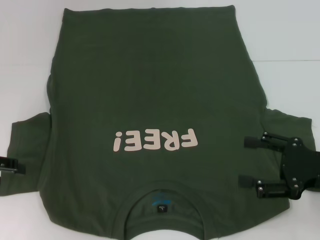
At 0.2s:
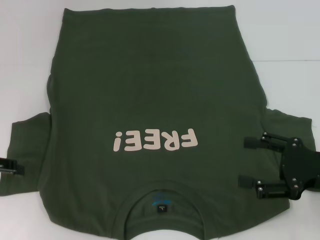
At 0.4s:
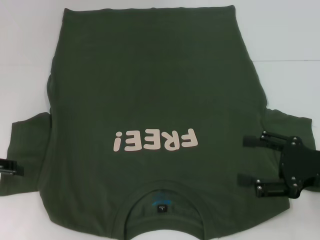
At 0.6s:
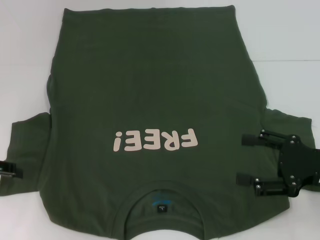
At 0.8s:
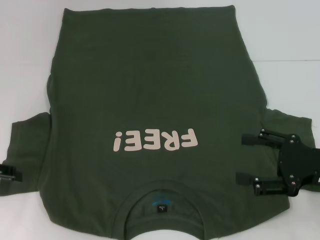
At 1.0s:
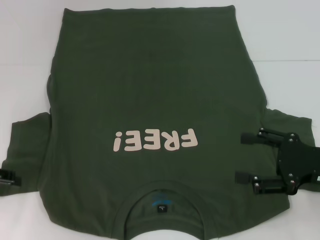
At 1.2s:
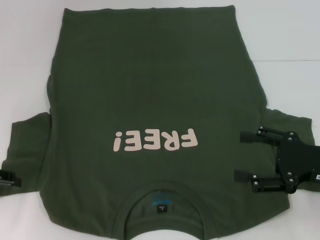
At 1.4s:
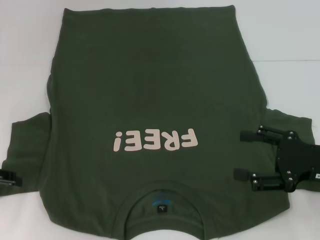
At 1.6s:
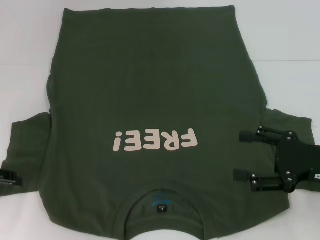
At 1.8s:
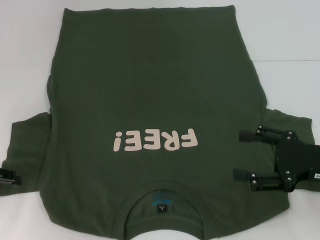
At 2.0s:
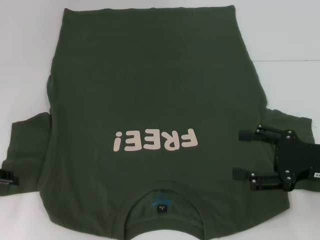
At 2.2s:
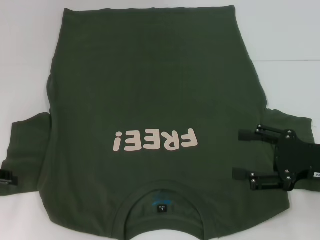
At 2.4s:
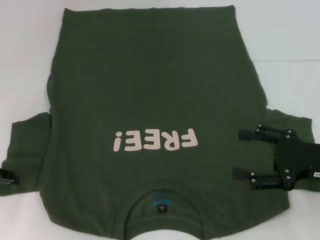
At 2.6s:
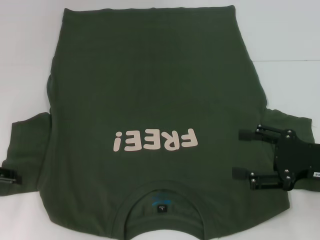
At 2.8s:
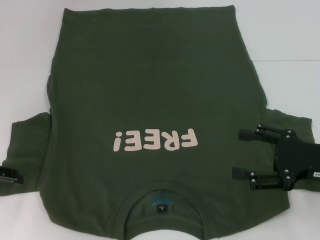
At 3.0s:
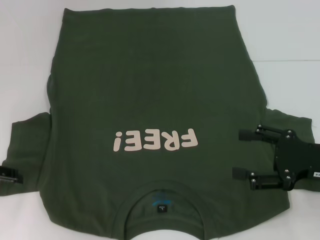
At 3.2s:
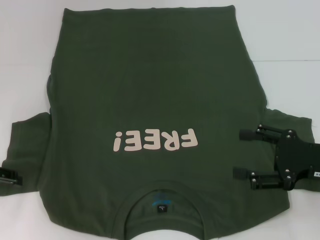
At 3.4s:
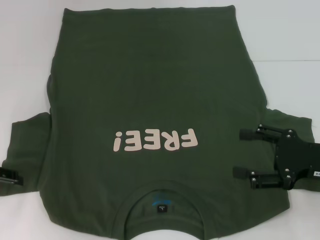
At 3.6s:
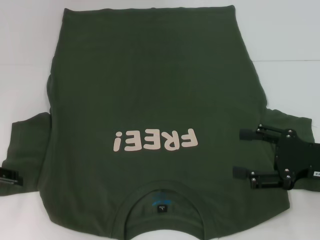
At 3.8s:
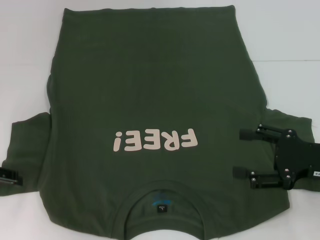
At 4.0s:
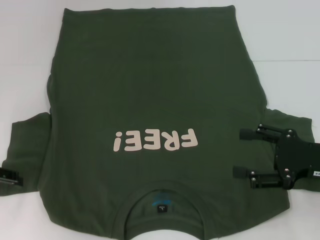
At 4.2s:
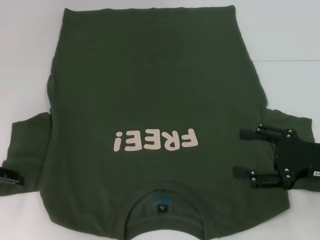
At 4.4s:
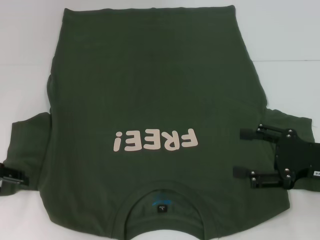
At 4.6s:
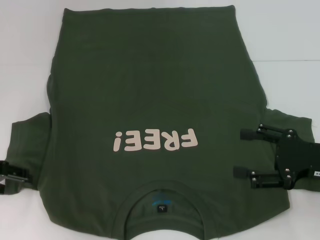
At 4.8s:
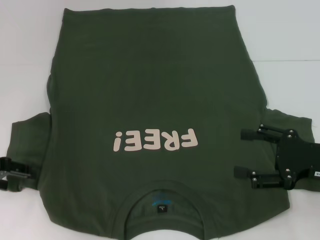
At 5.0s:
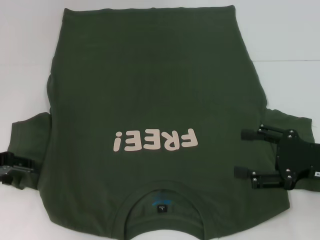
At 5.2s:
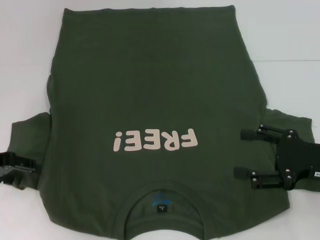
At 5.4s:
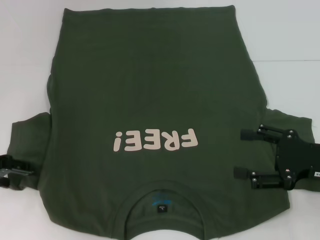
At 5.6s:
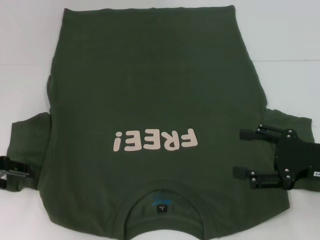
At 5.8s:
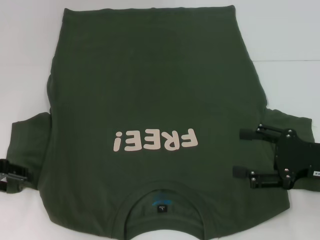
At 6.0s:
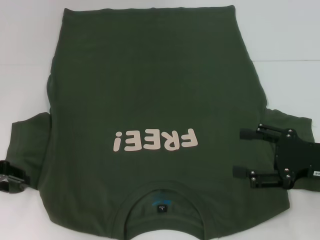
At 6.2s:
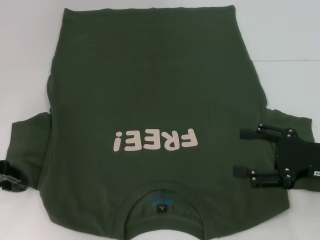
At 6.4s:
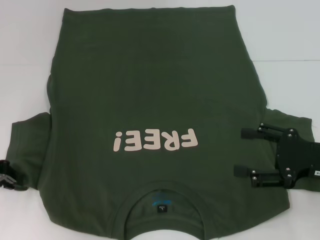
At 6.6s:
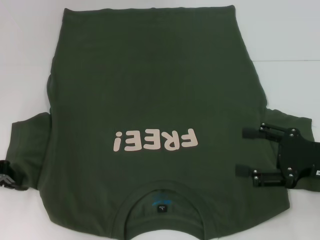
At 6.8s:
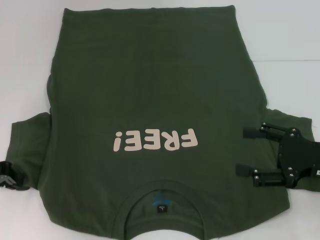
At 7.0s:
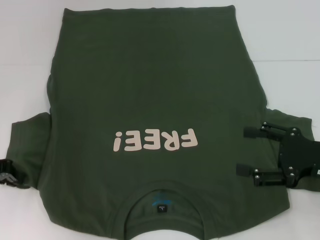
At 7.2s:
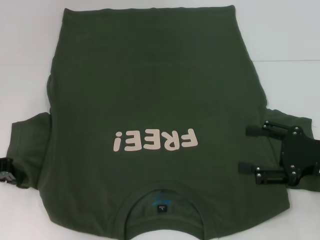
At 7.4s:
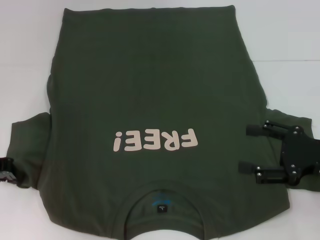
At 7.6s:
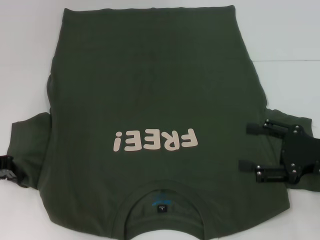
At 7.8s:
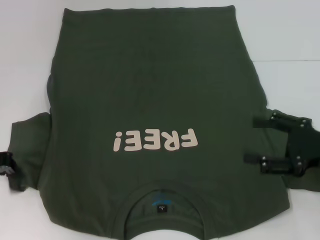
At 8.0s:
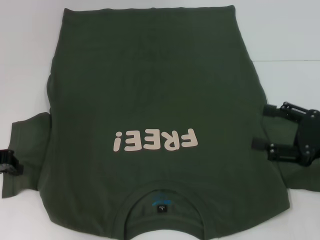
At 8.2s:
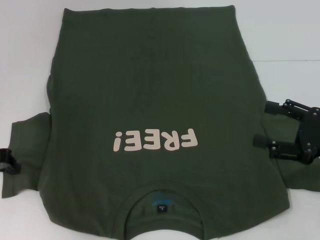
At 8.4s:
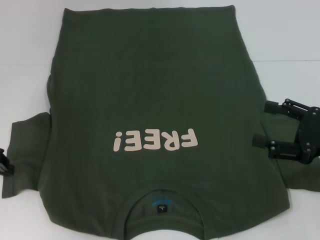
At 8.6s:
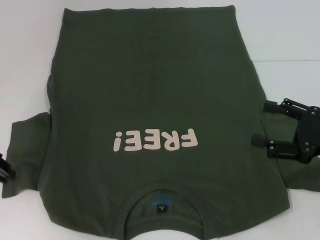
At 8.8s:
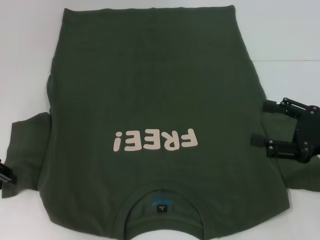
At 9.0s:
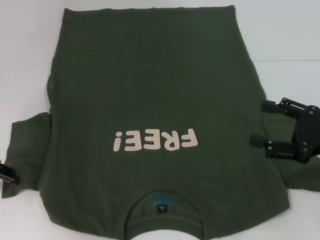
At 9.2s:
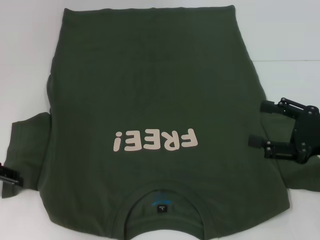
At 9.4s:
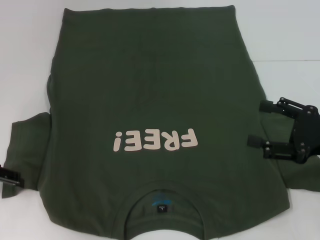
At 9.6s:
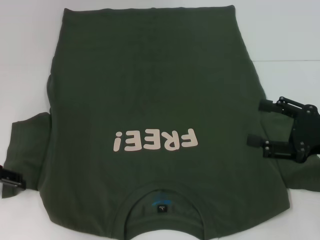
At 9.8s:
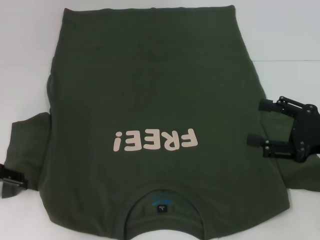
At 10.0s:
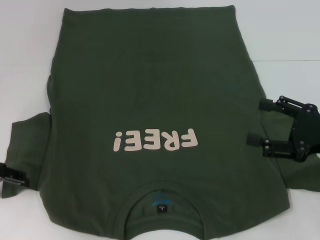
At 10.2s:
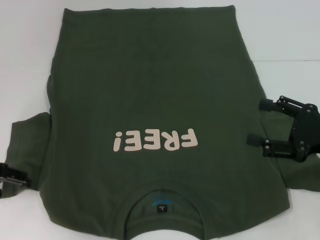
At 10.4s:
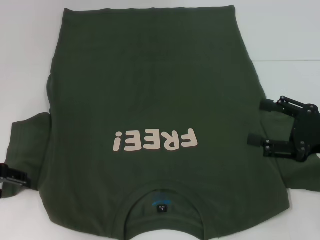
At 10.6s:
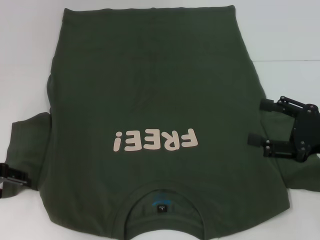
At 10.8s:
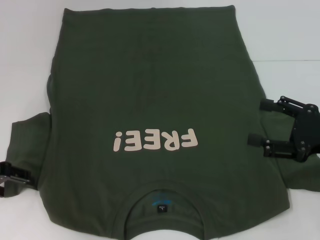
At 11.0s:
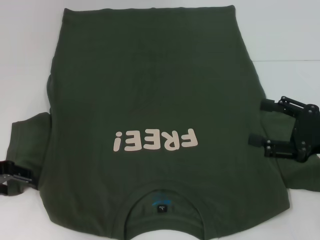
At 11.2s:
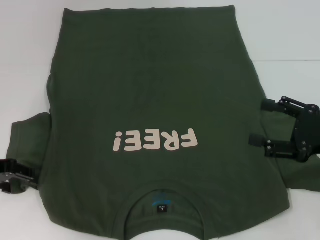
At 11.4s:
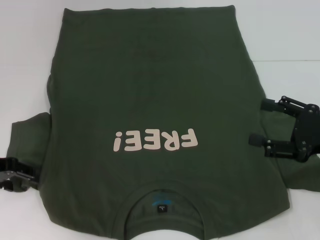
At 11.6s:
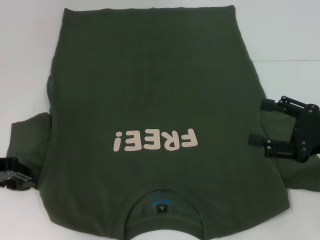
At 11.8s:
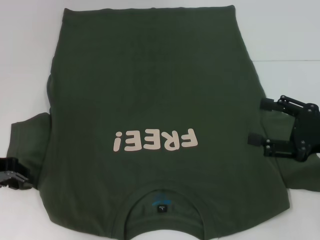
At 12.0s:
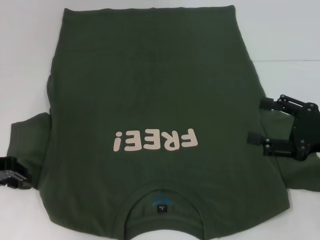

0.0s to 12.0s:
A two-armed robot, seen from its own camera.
0.0s to 1.6s: The grippers stay close to where they were, moving slightly.
1.6s to 3.0s: Both grippers stay about where they are.
3.0s to 4.4s: Neither gripper changes place.
6.0s to 7.6s: The left gripper closes its fingers.
7.6s to 9.0s: The grippers move only a little.
10.4s to 12.0s: The left gripper closes up.

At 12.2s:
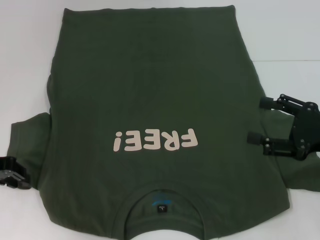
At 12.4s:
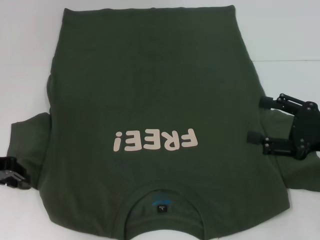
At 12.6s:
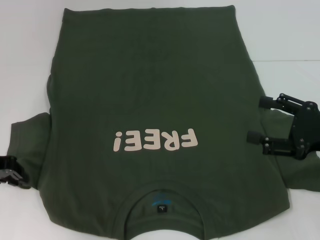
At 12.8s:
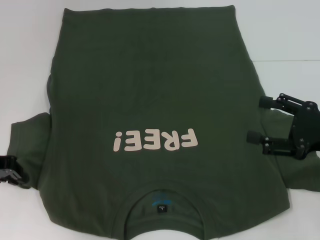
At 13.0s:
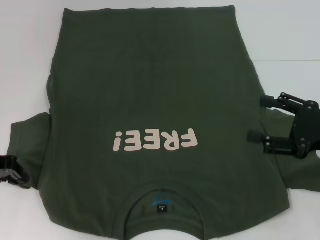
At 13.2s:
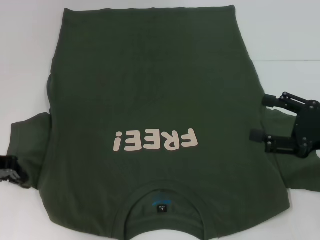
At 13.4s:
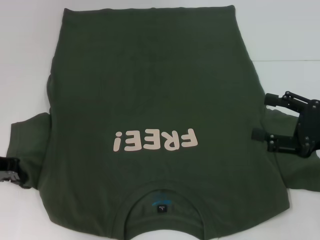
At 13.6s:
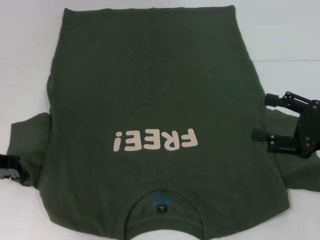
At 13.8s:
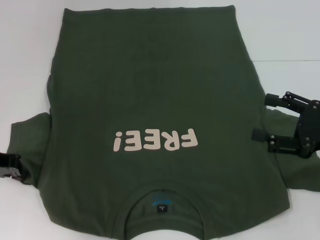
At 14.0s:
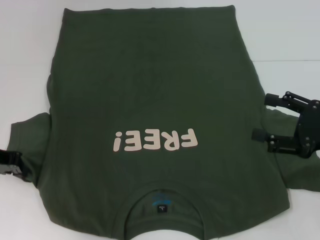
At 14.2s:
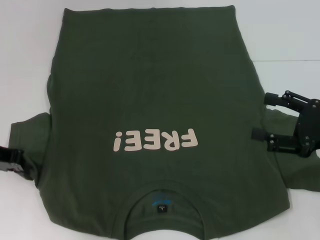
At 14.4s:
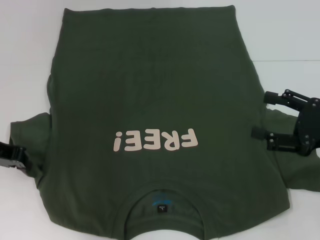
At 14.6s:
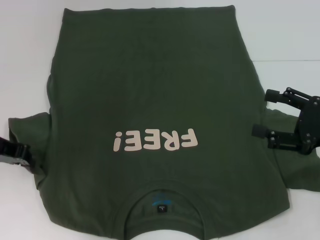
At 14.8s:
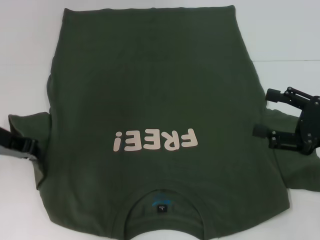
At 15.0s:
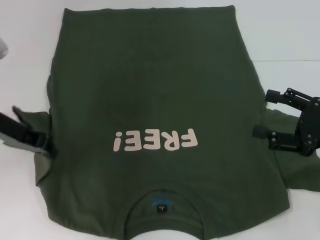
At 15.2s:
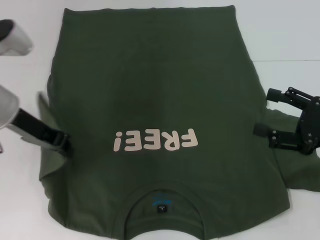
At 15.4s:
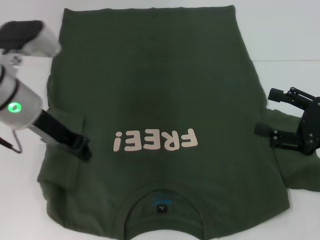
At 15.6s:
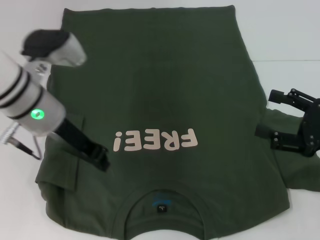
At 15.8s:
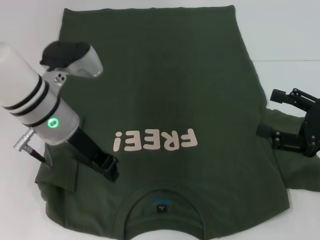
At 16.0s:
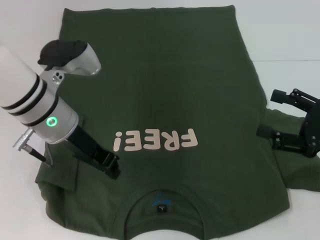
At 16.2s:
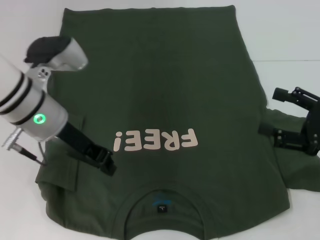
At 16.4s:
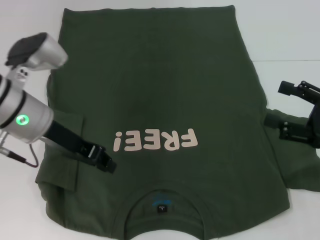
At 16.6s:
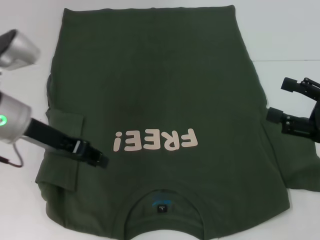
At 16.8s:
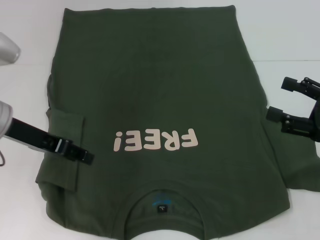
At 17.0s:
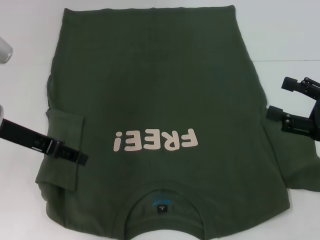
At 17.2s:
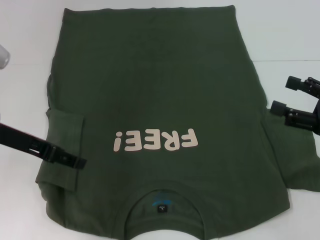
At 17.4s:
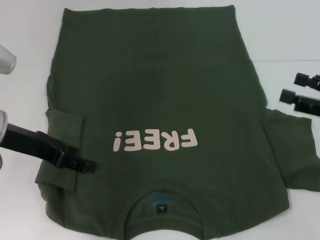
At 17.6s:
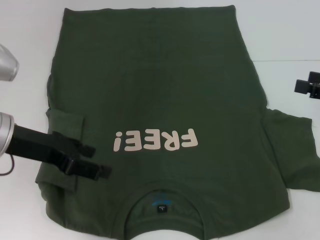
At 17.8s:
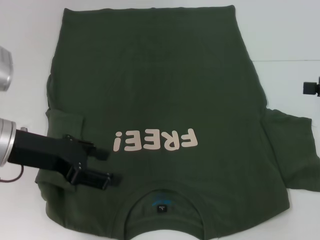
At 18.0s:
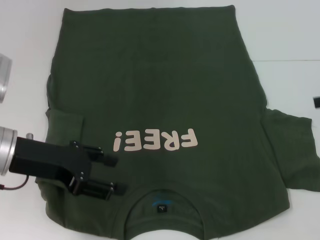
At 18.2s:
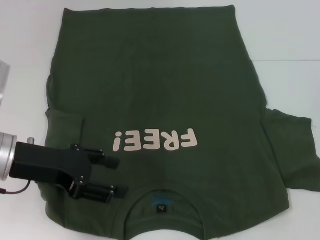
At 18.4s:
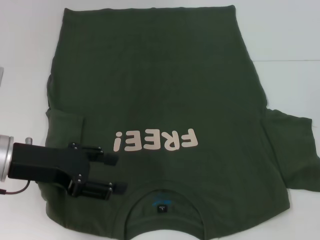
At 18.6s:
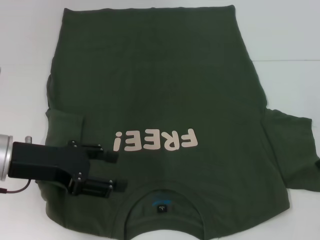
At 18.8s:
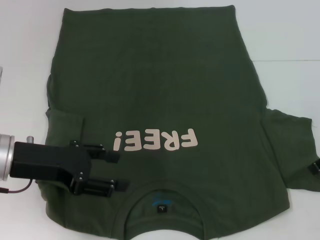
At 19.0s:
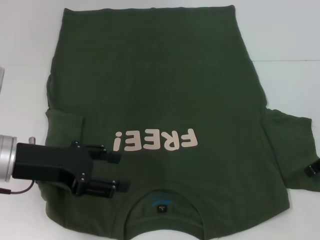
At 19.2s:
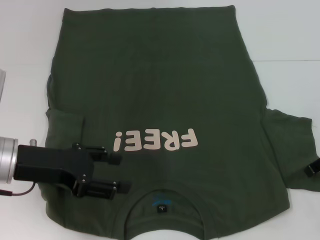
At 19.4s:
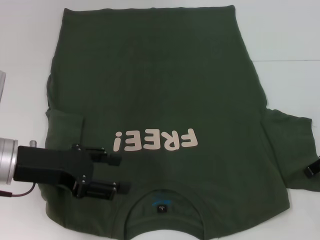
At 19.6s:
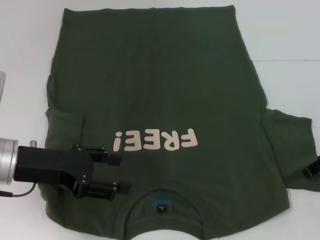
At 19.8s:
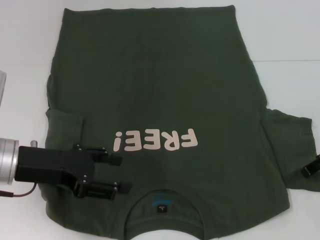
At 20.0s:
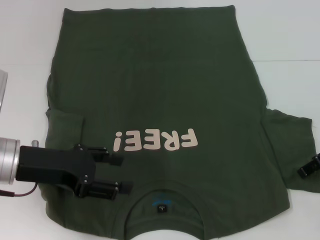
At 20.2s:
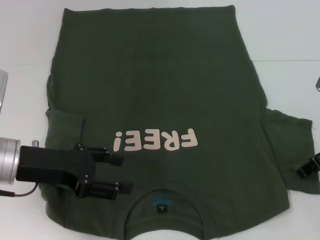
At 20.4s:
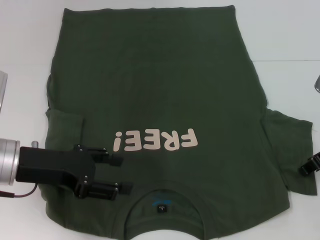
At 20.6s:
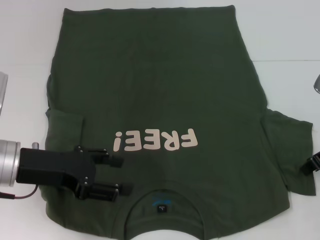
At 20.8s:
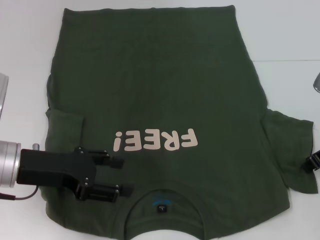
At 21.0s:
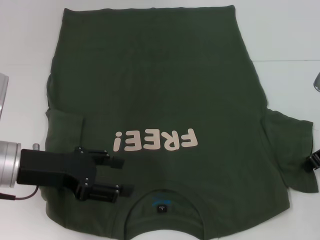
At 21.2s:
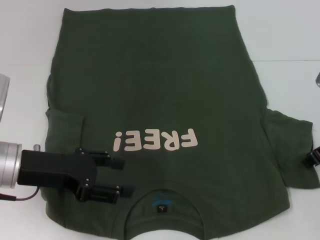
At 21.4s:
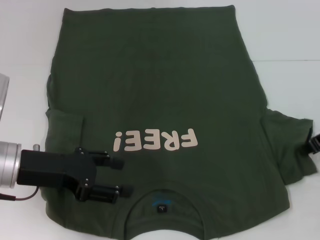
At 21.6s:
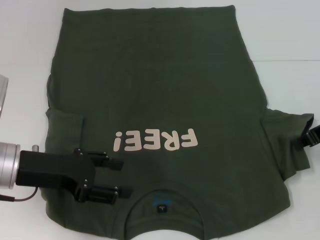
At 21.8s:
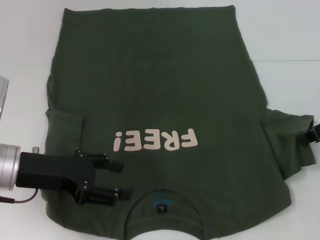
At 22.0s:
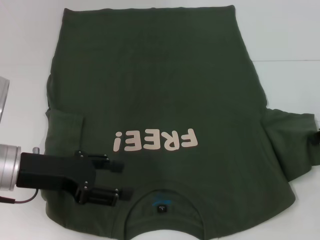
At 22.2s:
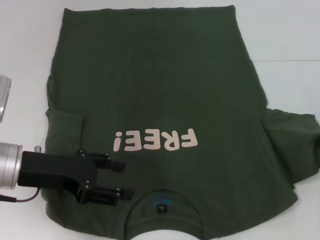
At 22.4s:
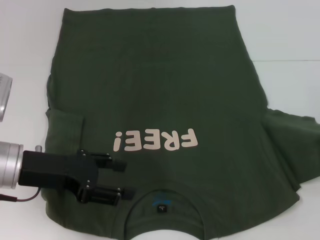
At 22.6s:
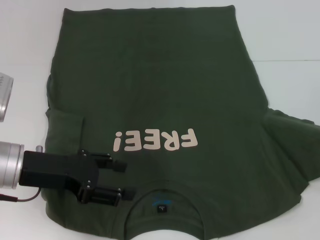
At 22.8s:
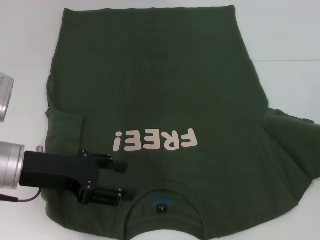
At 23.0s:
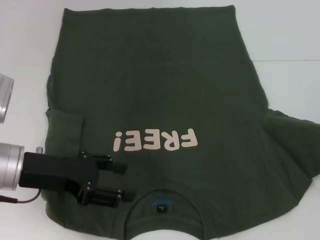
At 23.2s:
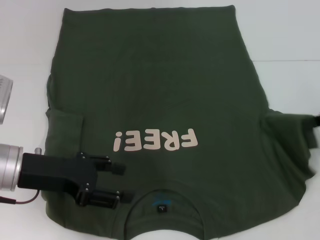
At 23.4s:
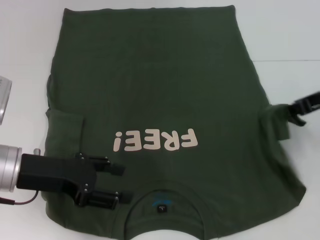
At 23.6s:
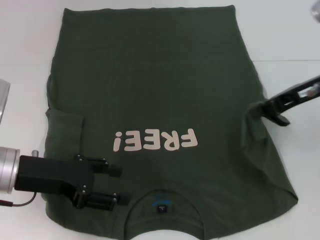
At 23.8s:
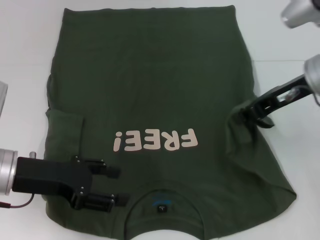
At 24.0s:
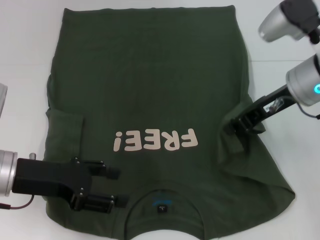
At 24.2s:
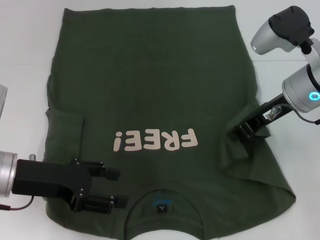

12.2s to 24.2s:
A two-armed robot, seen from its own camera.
Step, 12.2s to 15.4s: Fold the bottom left sleeve with your left hand.
12.2s to 13.8s: There are only small adjustments of the grippers.
13.8s to 15.2s: The left gripper moves to the right and upward, some 10 cm.
16.6s to 18.2s: The right gripper shifts about 10 cm upward and forward, while the left gripper goes about 5 cm backward, and opens up.
19.8s to 21.2s: The right gripper closes up.
21.2s to 22.6s: The right gripper goes about 5 cm to the right.
22.6s to 24.2s: The right gripper is displaced to the left by about 15 cm.
